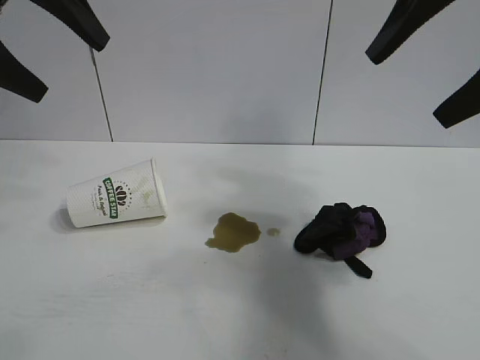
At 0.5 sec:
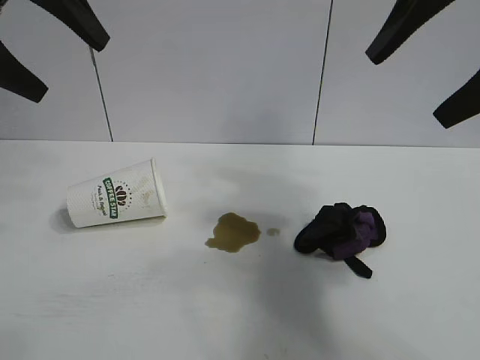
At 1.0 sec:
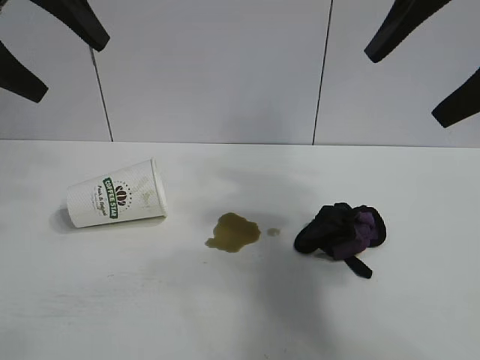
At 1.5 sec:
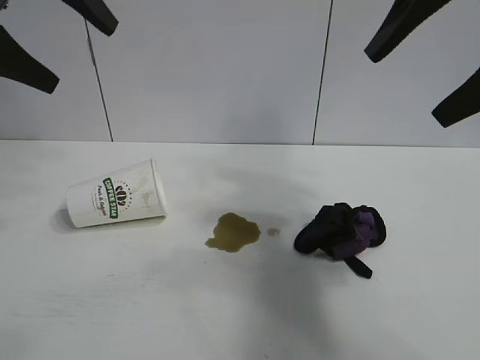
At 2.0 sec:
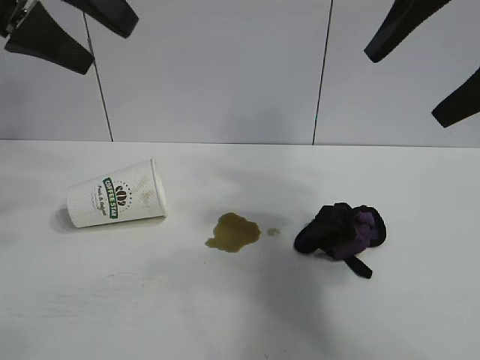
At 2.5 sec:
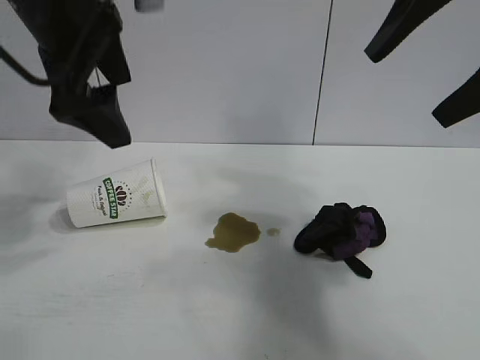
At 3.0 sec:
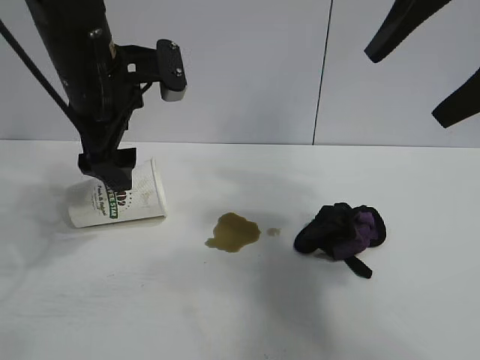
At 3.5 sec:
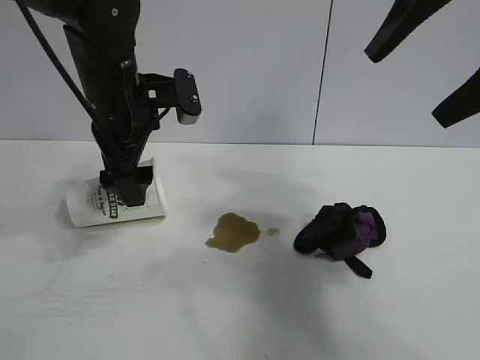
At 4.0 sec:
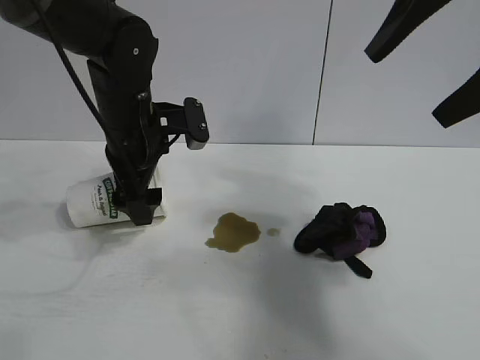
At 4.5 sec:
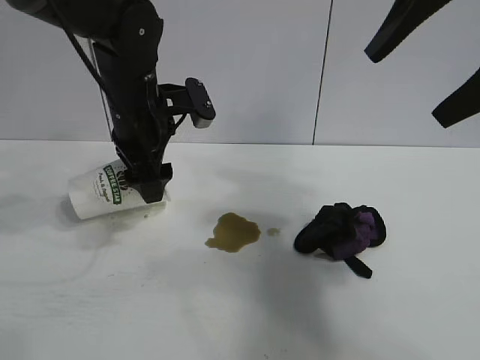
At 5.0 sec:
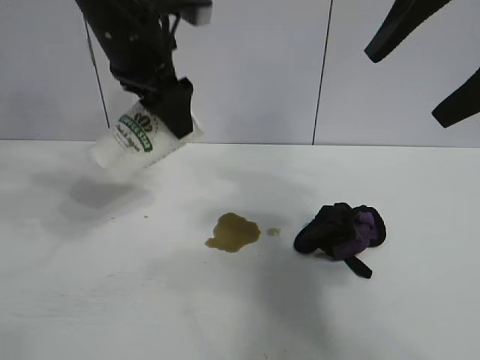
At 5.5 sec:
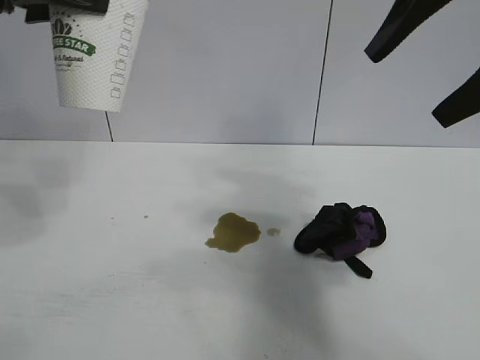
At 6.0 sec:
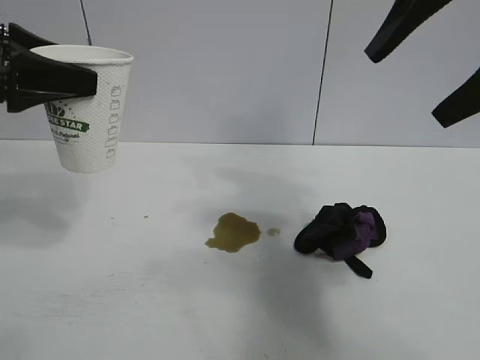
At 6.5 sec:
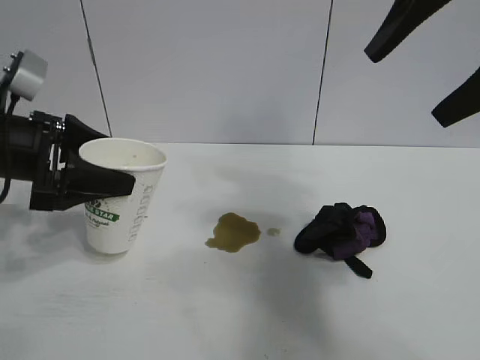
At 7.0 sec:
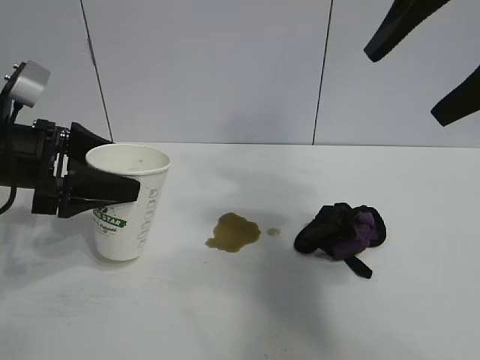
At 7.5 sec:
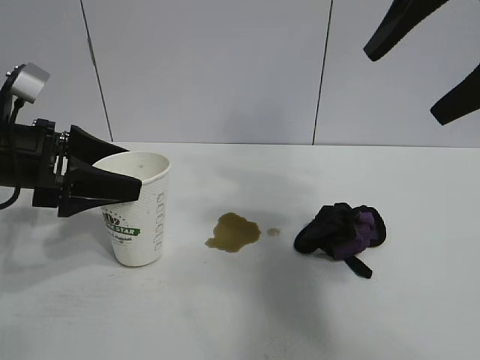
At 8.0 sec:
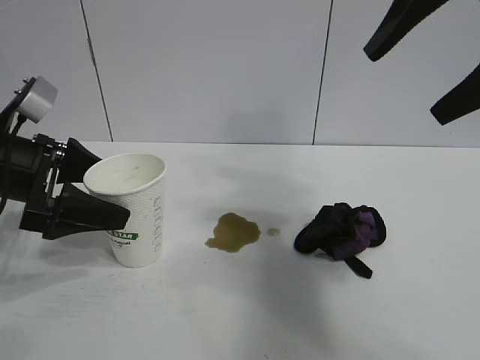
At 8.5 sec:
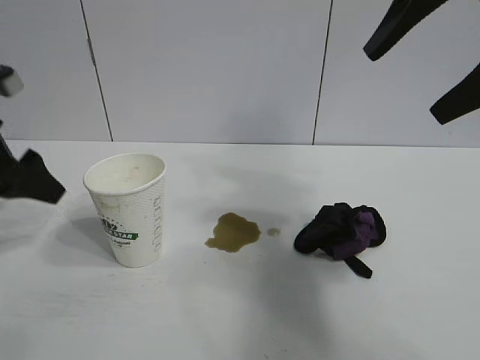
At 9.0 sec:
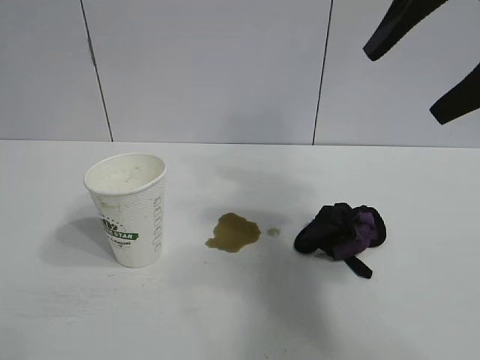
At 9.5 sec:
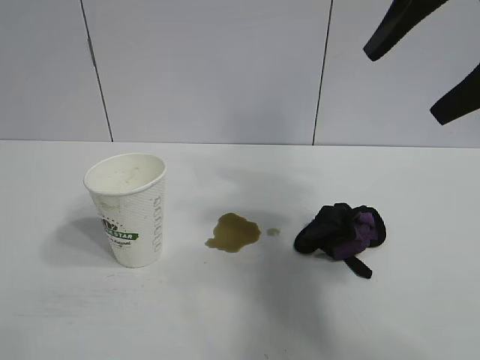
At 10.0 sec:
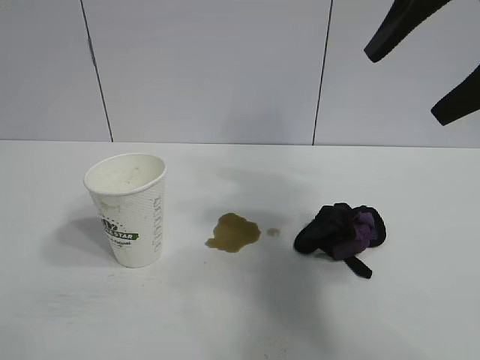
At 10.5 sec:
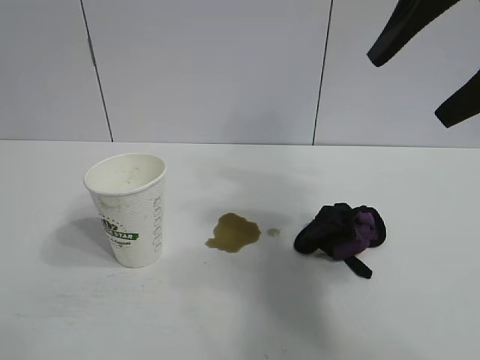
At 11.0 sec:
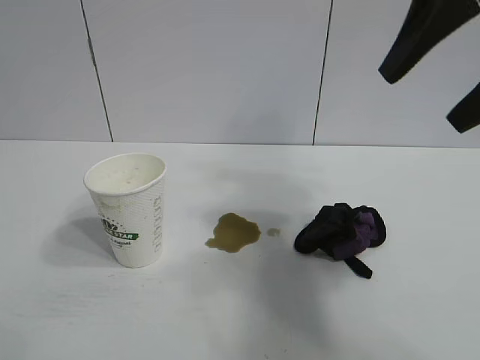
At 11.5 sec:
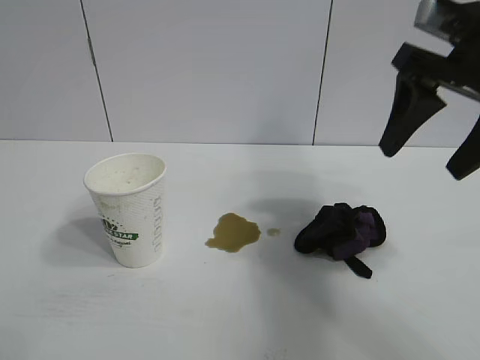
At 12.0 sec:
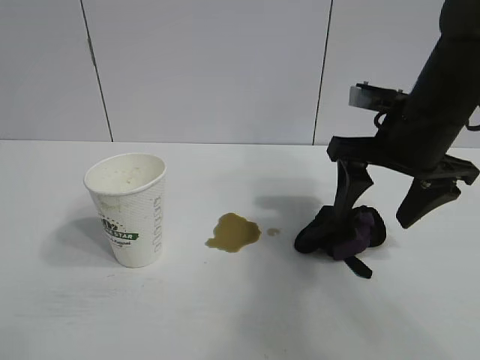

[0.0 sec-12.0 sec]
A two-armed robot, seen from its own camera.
Task of the whole recording: the left gripper pick up the fallen cup and place it upright, the right gripper grasp the black rag and wipe the stain on the table, the right gripper put the black rag back in its original position.
Step, 1.5 sec to 4.0 sec: Grasp the paper cup with left gripper.
Step, 4.5 sec to 7.5 sec: Stand the paper cup upright with left gripper.

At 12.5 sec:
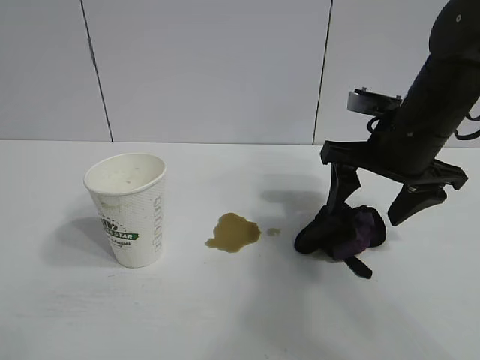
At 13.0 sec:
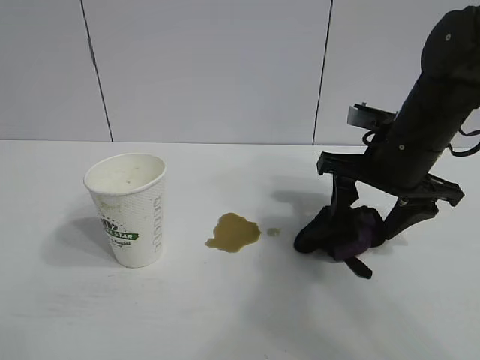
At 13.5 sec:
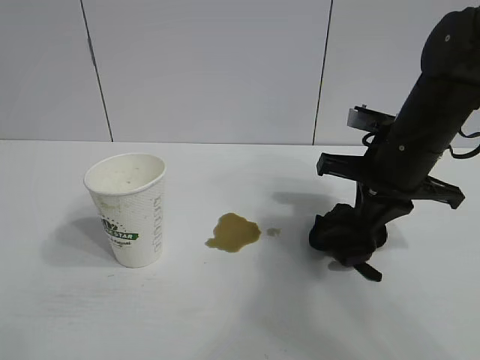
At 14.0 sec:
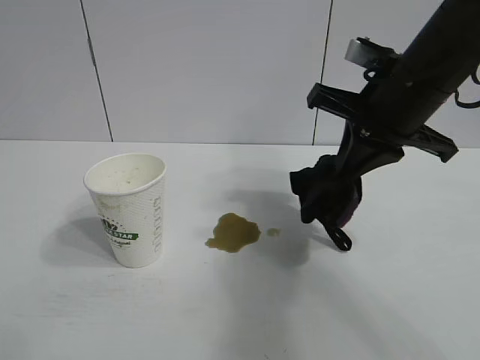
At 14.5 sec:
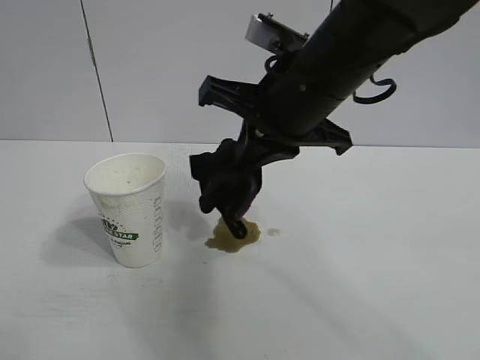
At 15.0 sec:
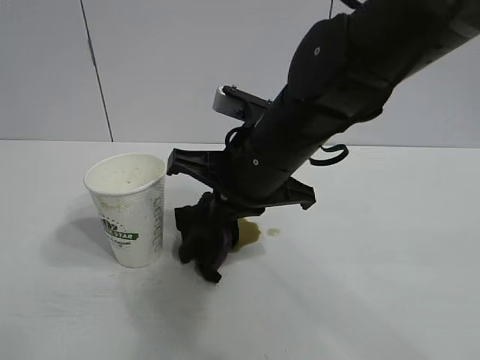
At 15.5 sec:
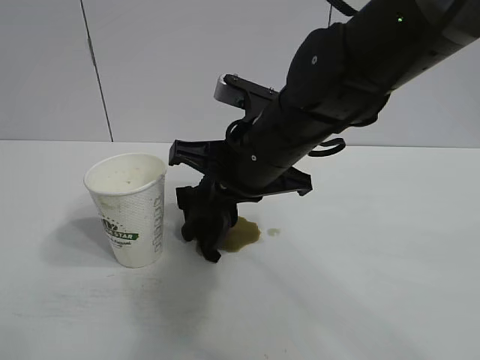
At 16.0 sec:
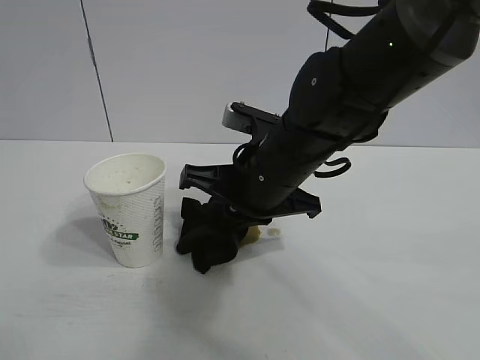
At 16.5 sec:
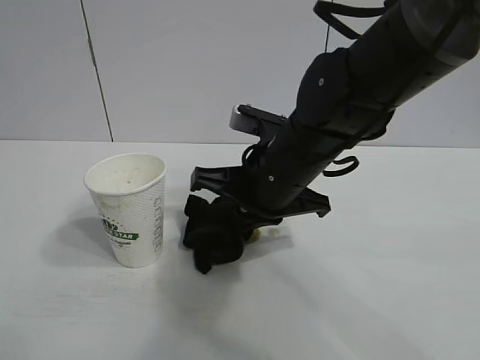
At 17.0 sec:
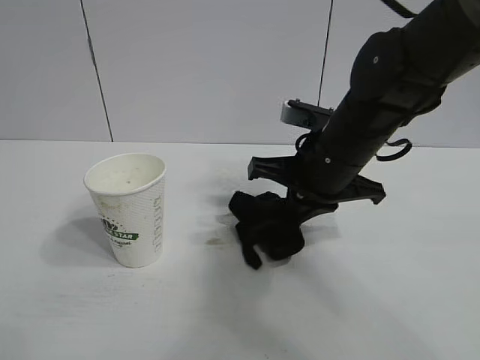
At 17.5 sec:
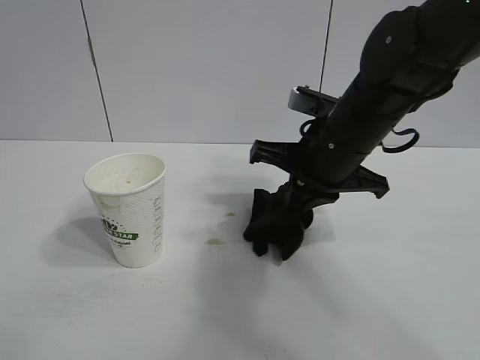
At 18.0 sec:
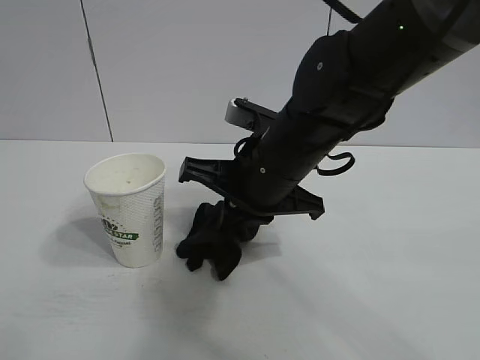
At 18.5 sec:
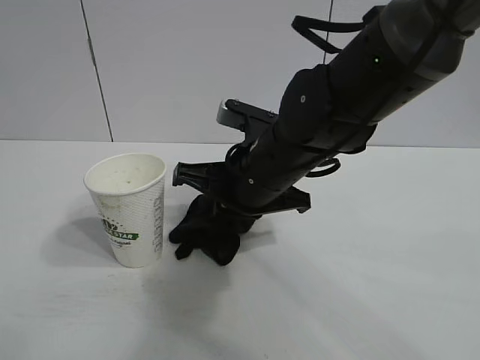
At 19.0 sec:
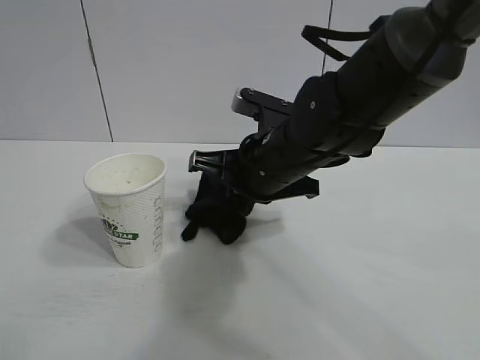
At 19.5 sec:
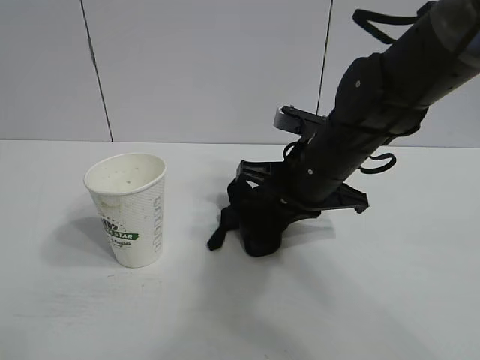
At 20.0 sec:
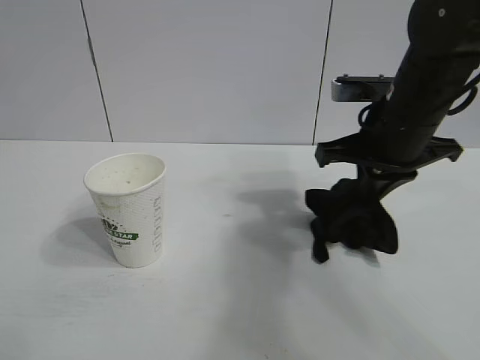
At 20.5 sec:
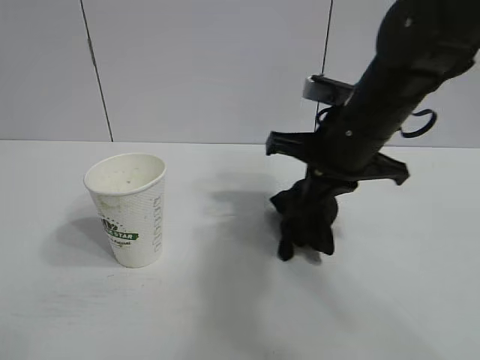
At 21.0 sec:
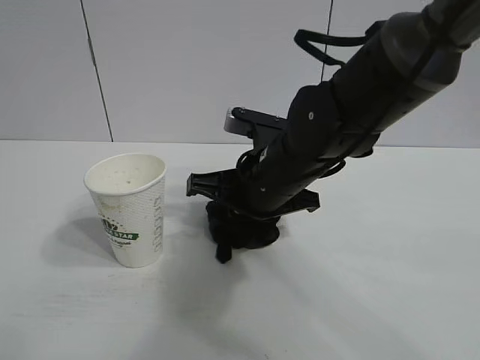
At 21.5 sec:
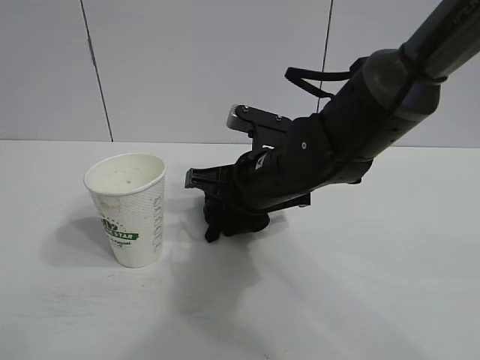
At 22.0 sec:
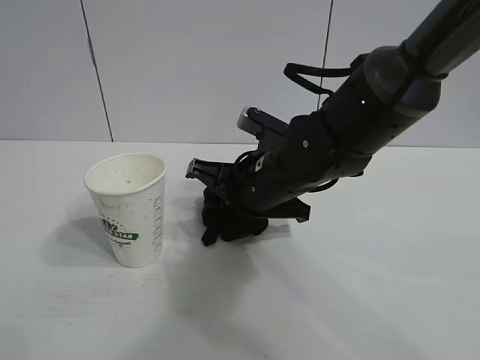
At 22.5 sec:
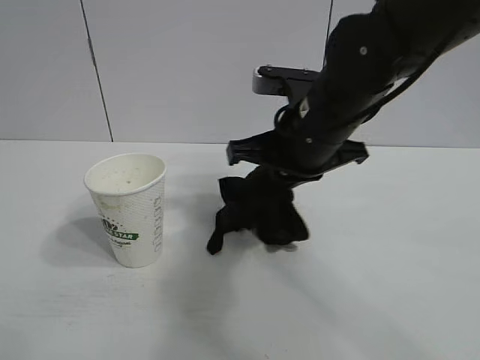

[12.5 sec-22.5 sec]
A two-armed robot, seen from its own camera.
Task of the whole recording: the left gripper pick up the fallen cup and place it upright, the right gripper grasp the black rag and wipe the stain on the table, the right gripper put the black rag back in its original position.
Step, 13.5 sec to 21.5 sec: Wipe the stains off the table with the rag with right gripper.

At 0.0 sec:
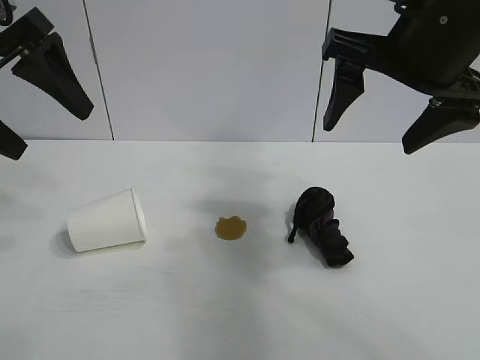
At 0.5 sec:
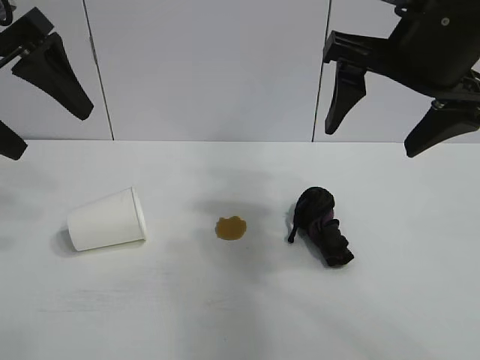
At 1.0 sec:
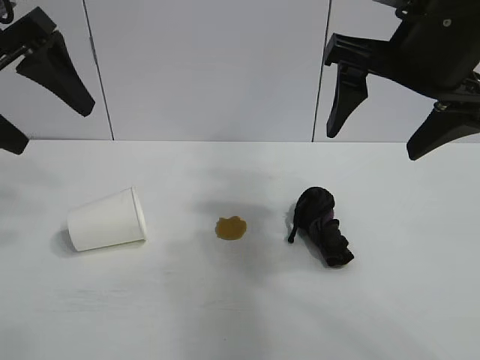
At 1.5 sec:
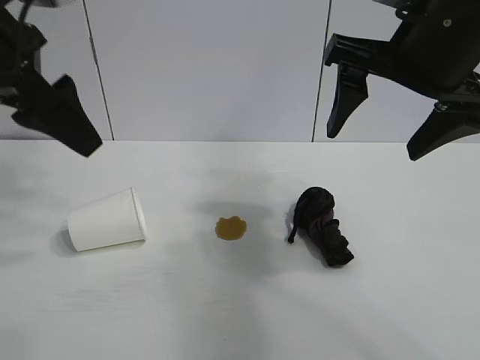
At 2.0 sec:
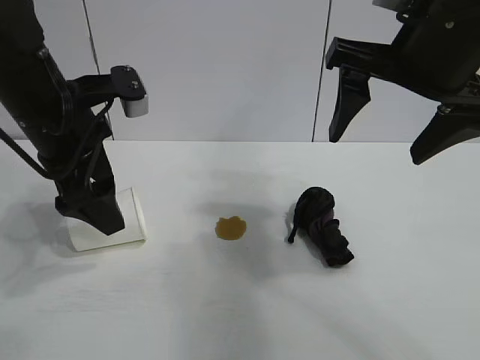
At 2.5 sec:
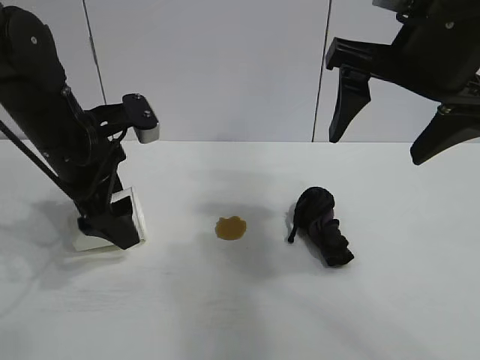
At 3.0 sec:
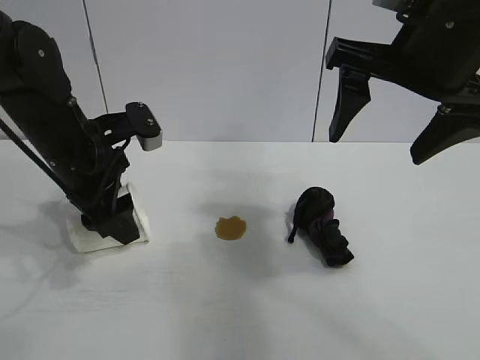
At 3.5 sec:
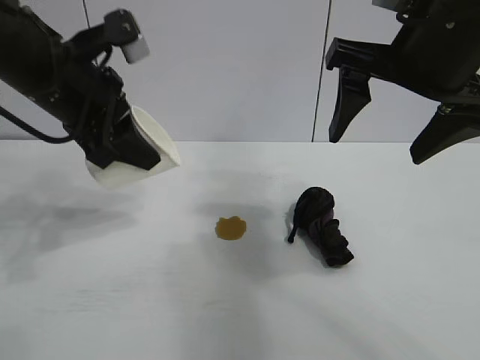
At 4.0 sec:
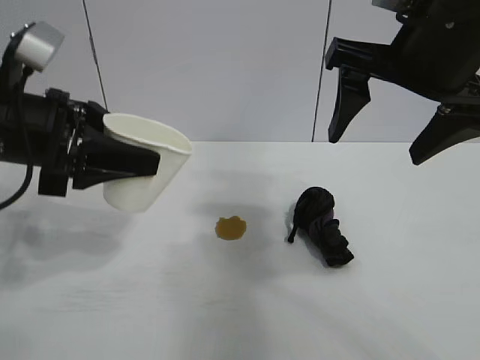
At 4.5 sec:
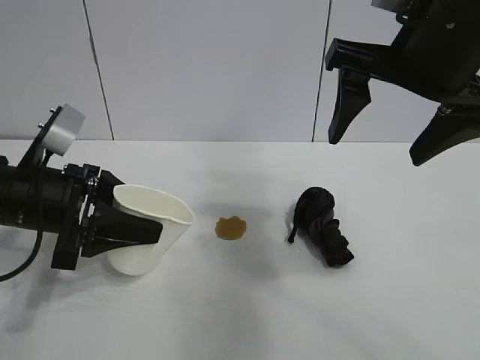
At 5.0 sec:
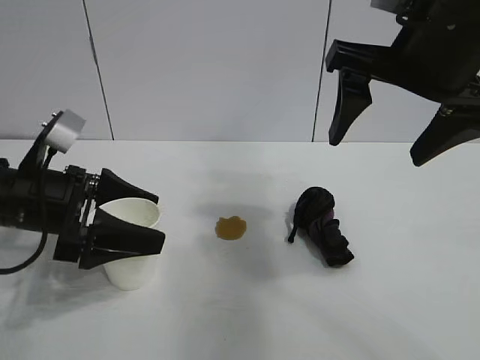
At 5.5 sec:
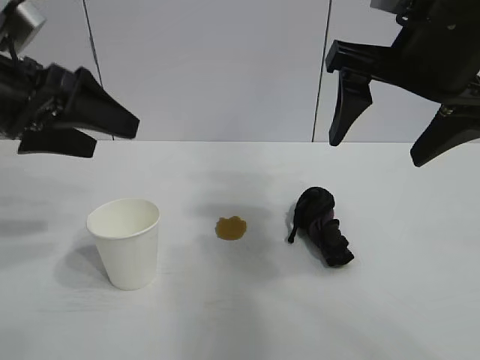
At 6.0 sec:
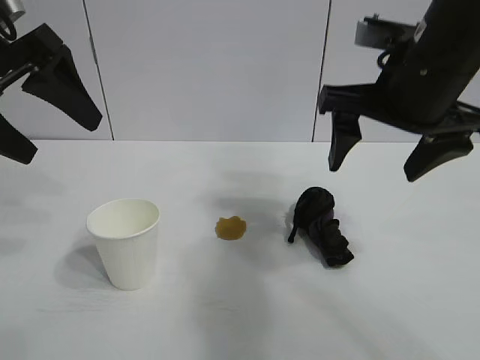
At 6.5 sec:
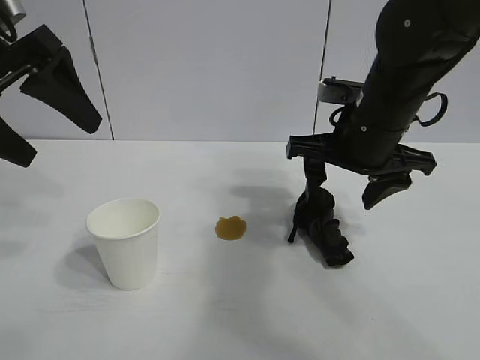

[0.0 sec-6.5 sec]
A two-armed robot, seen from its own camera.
Task of the whole recording: the left gripper pick up the fallen cup and place it upright, the right gripper grasp the black rag and wipe the stain on the table, the right gripper put the black rag back in its original position.
Step, 0.0 sec to 3.0 sec: Grasp the paper cup with left gripper.
Step, 3.5 sec to 4.5 sec: Stand the paper cup upright with left gripper.
